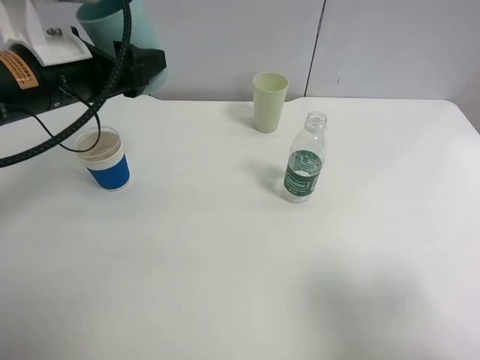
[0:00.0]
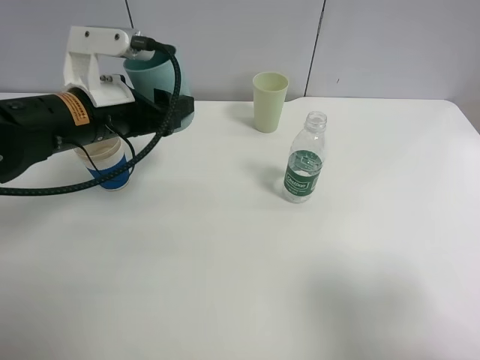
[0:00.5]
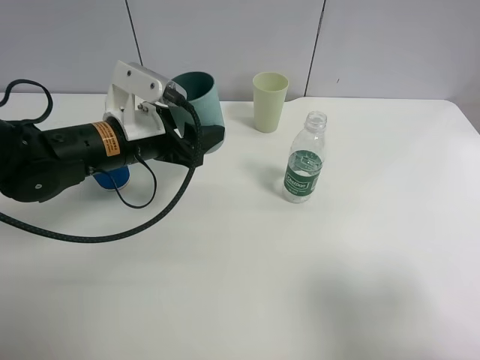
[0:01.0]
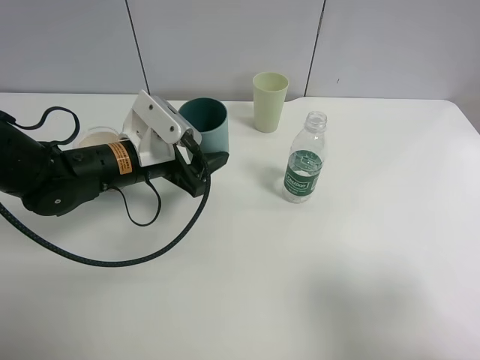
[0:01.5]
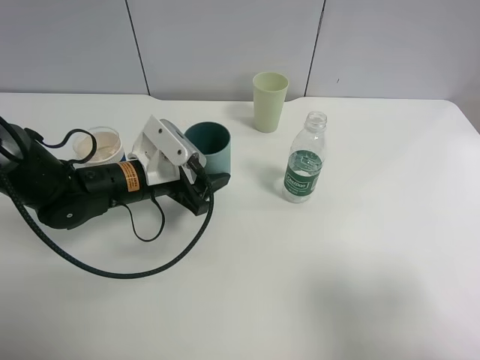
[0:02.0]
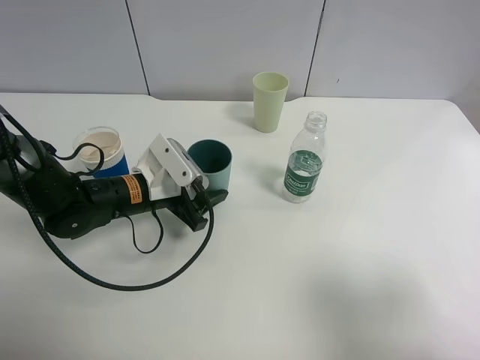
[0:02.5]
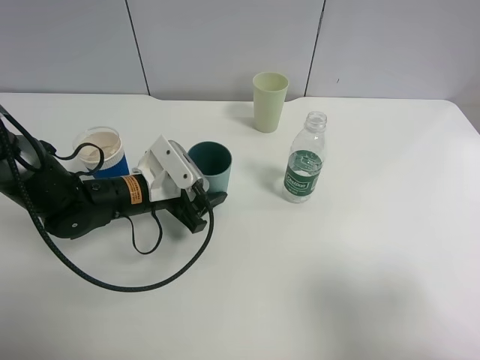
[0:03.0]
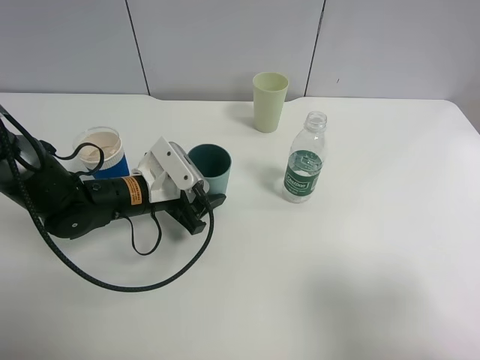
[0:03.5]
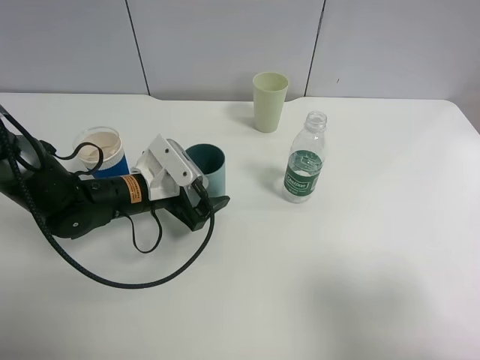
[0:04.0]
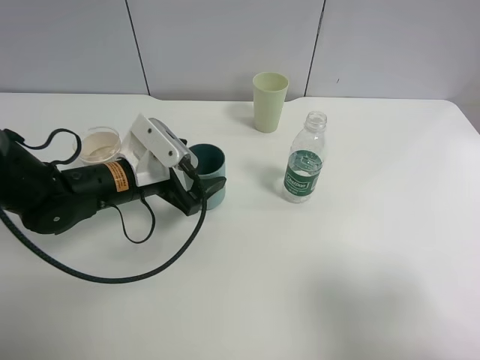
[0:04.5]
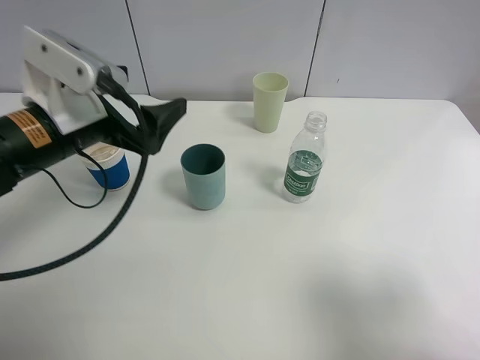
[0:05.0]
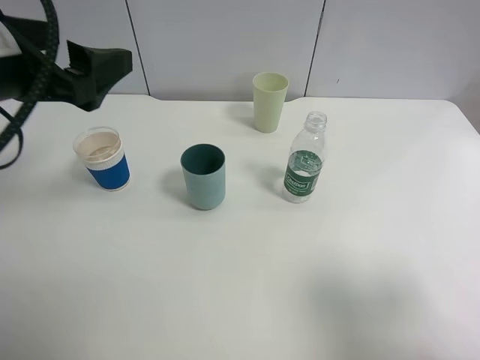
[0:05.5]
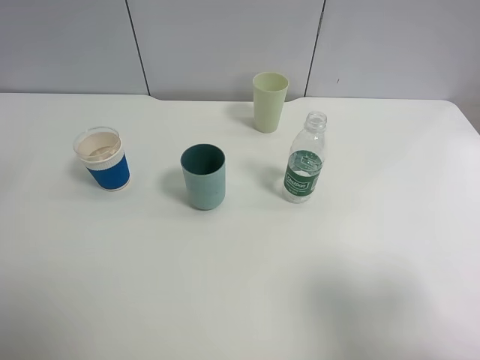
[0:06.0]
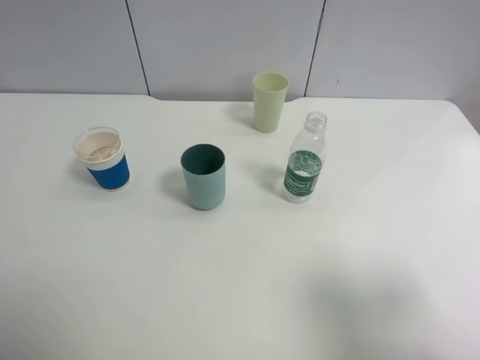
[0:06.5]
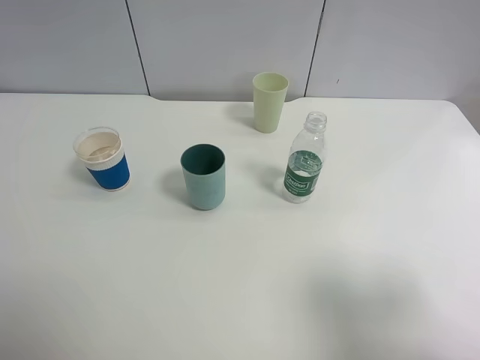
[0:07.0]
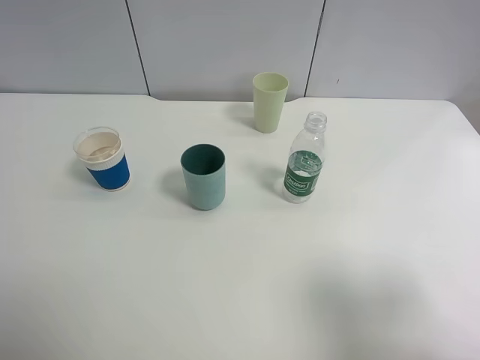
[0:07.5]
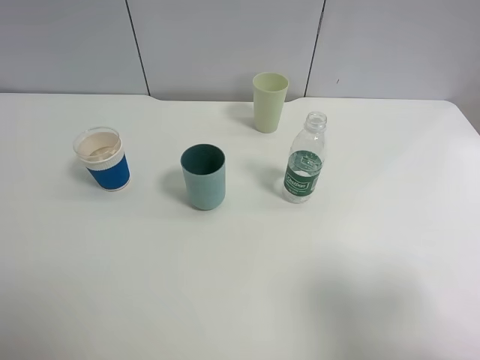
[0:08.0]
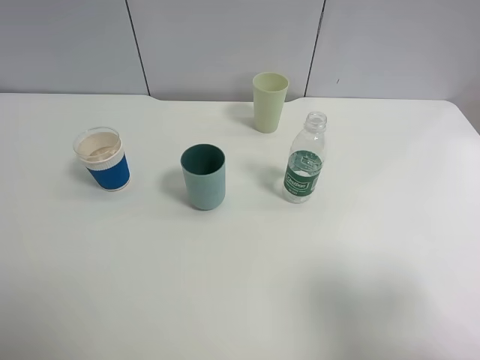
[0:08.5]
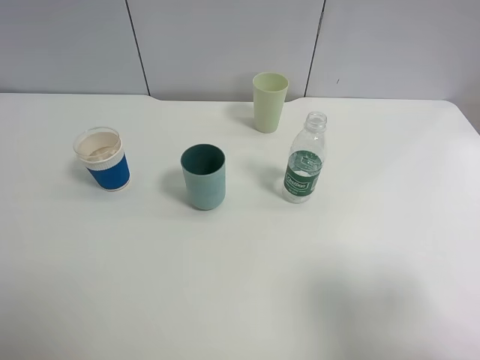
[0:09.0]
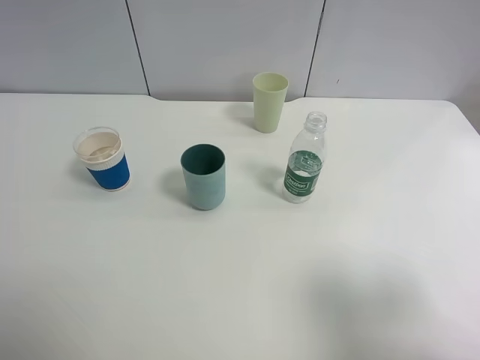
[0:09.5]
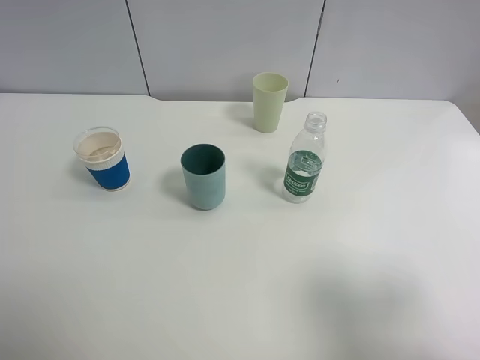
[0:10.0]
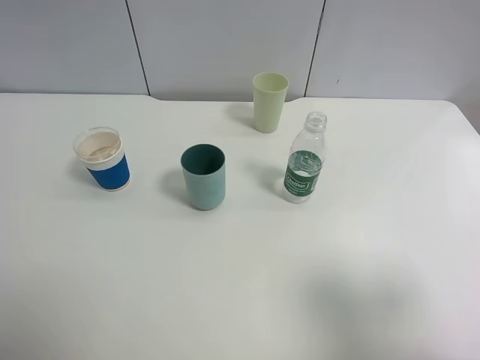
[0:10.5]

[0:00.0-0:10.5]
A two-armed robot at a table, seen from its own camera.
Task of the whole recording: use a clamp to hold the bottle of the drink, pour the beverage into a random cup, then clamp the cup containing the drink and pour the drink into another random cup.
Step, 0:00.0 to 0:04.5: Place the blue plastic cup on the table with left gripper.
0:00.0 to 0:02.0: The left gripper moves downward, roughly 15 cm.
0:02.0 to 0:04.0: The left gripper opens.
0:04.0 to 0:06.5: The left gripper heads upward, backward and to the left, covering some 40 cm.
0:08.5 to 0:10.5: Neither gripper changes place.
